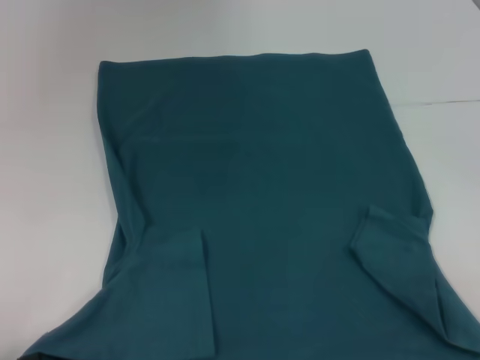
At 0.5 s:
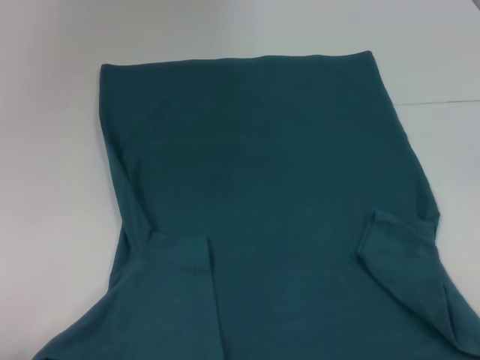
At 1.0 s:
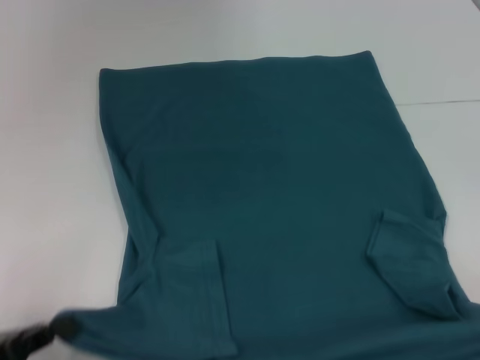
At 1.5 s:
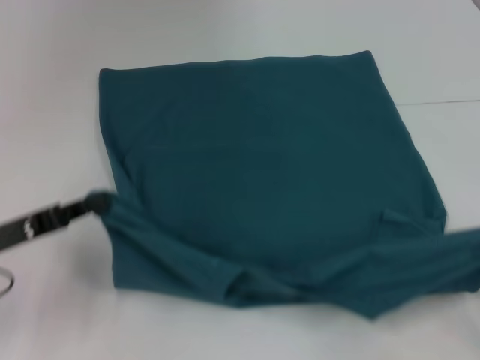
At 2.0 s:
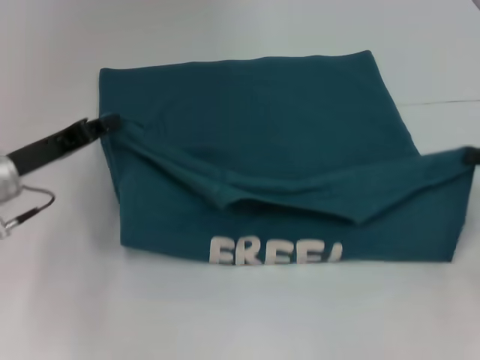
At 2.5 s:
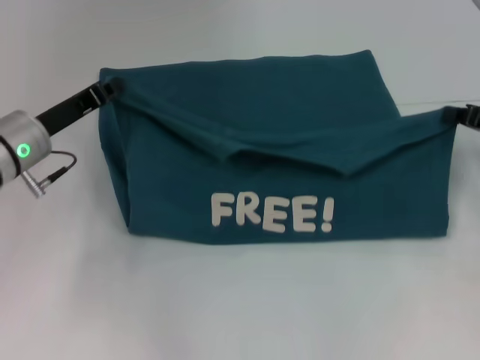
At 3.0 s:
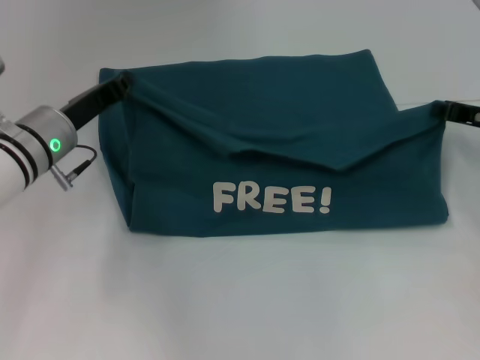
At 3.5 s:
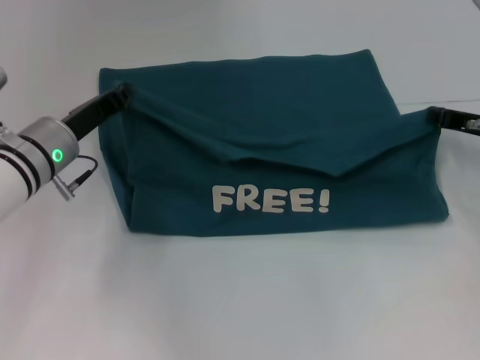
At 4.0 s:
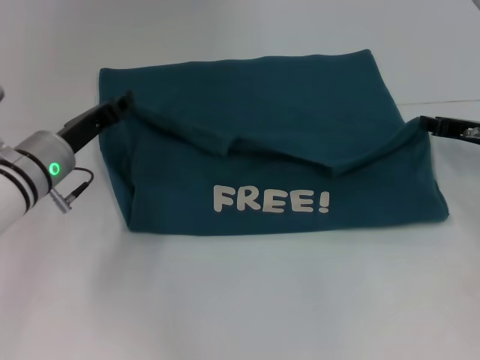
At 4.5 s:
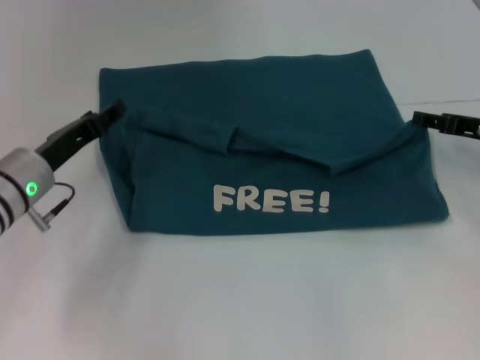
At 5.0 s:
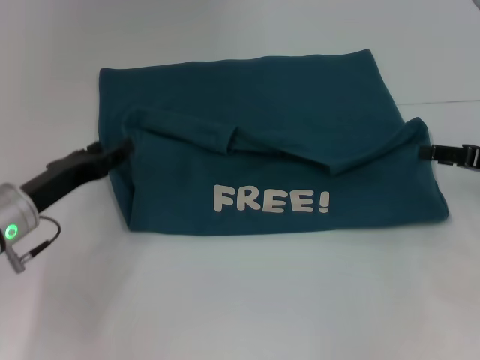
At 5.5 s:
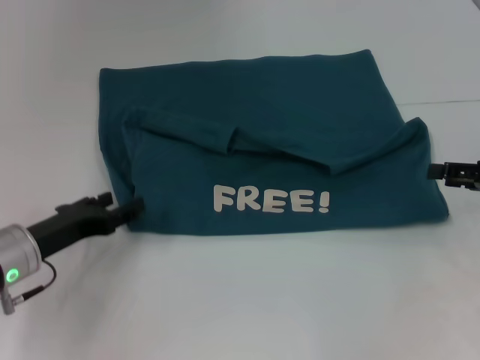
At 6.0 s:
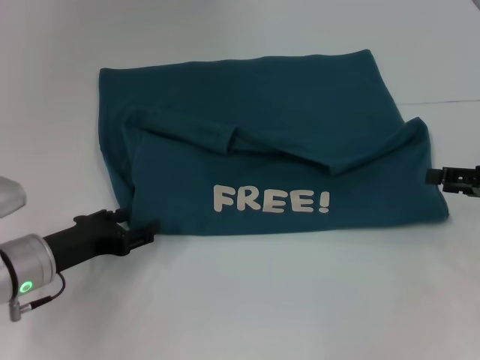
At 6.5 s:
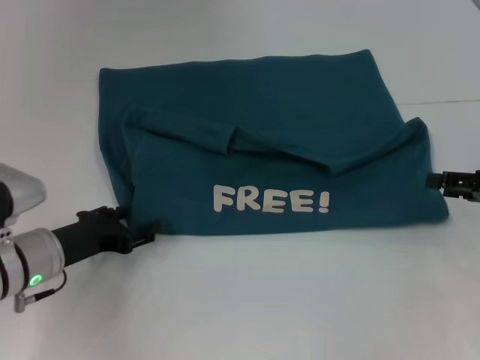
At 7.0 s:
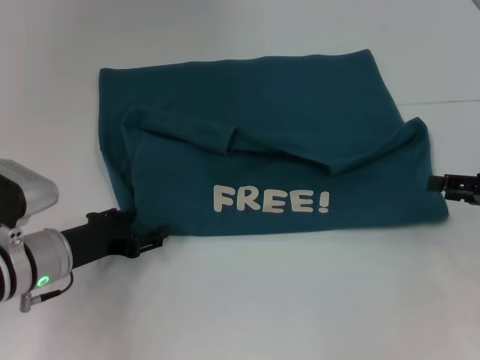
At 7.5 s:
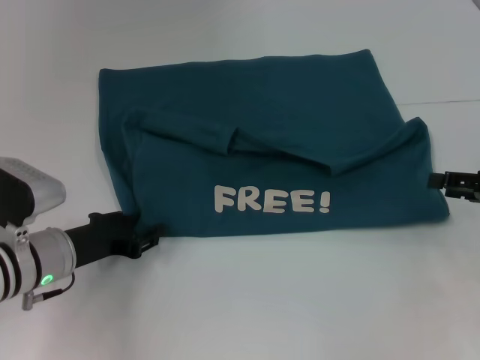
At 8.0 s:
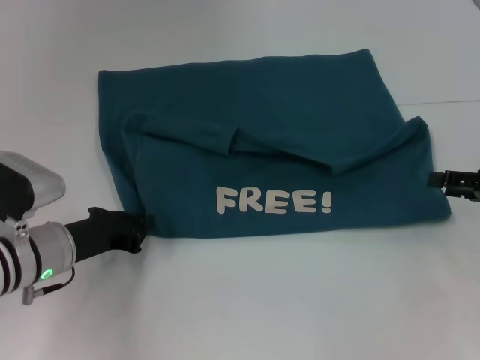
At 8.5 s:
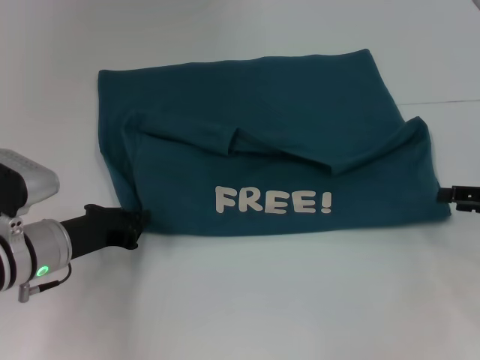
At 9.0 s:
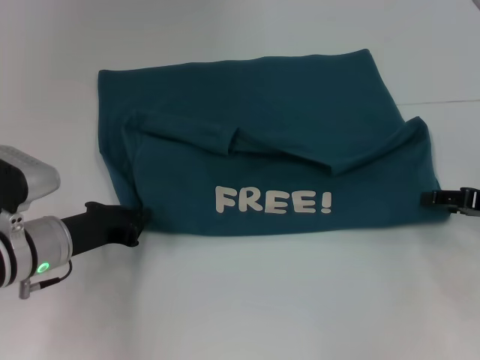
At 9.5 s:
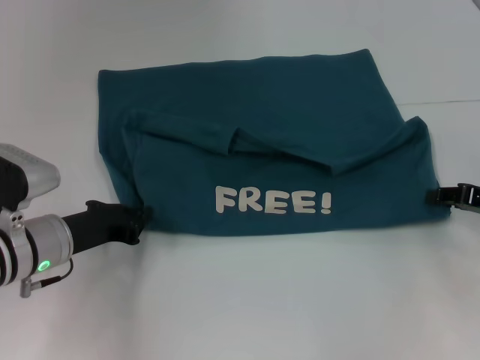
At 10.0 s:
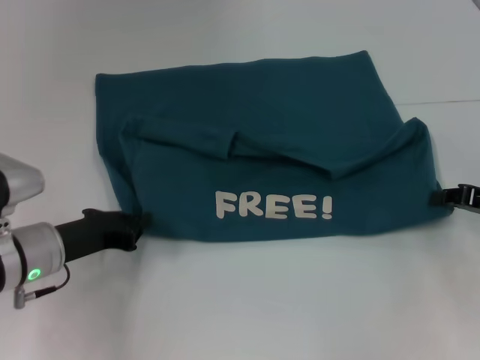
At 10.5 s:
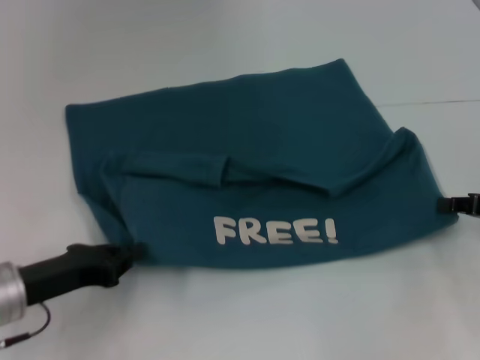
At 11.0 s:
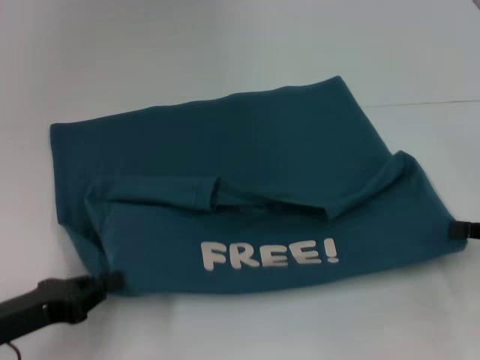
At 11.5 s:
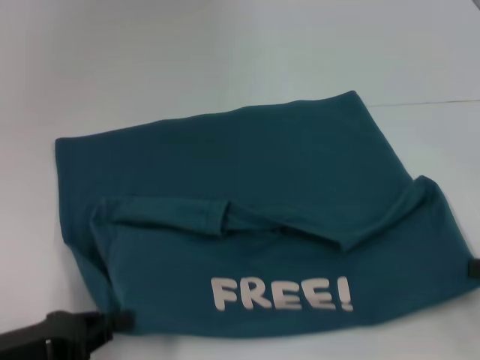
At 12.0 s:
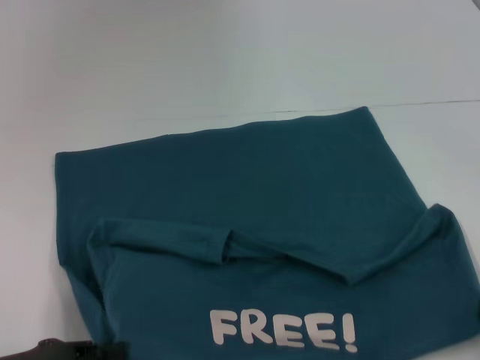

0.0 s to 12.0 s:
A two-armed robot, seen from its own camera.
Step, 0.0 to 4.5 s: Fold the clothes to the left.
Step, 0.0 to 4.5 s: Fold the clothes to the right.
Step, 5.0 to 11.5 s: Pull the clothes with your left hand.
Step, 5.0 to 11.5 s: Pull the clothes with your right hand.
0.0 to 2.0 s: The right gripper is displaced forward by approximately 20 cm. Meanwhile the left gripper is displaced forward and to the right by approximately 25 cm.
2.0 to 4.0 s: The right gripper goes some 10 cm forward and to the left; the left gripper is displaced to the right by some 5 cm.
4.0 to 6.0 s: The two grippers go approximately 10 cm backward. The right gripper opens its fingers. The left gripper opens.
6.0 to 8.0 s: The left gripper closes up.
8.0 to 10.0 s: The right gripper closes up.
10.0 to 12.0 s: The left gripper goes roughly 15 cm backward and to the left. Meanwhile the right gripper moves backward, approximately 15 cm.

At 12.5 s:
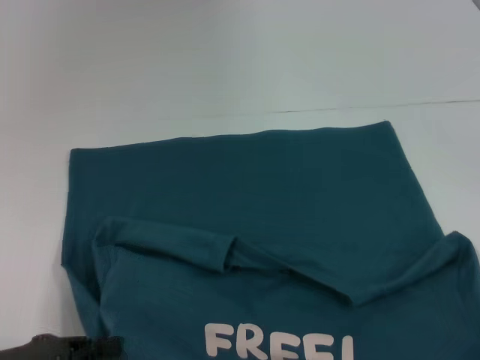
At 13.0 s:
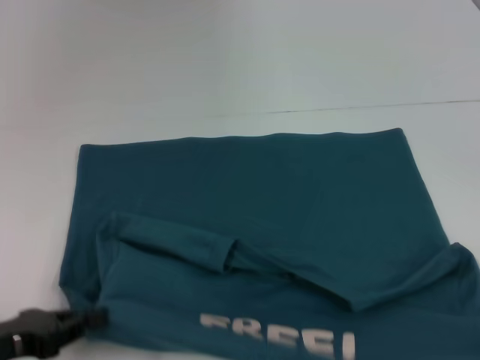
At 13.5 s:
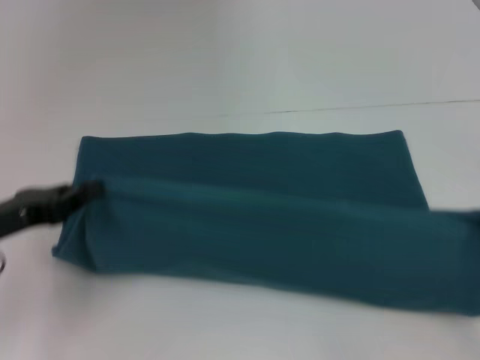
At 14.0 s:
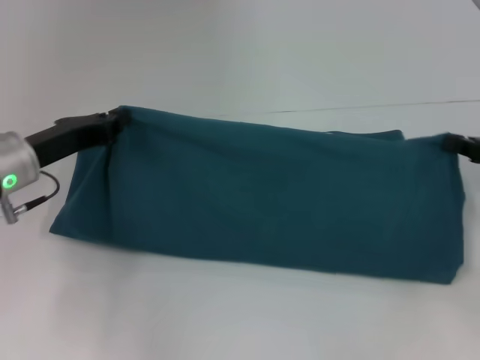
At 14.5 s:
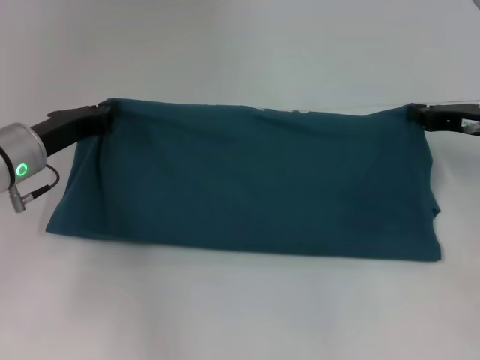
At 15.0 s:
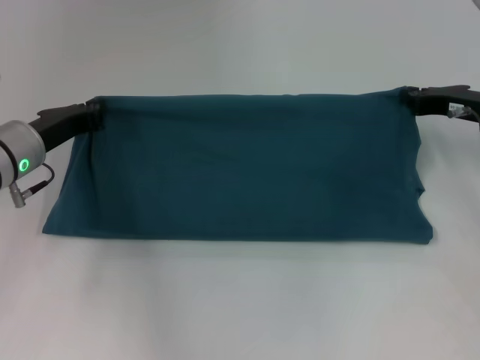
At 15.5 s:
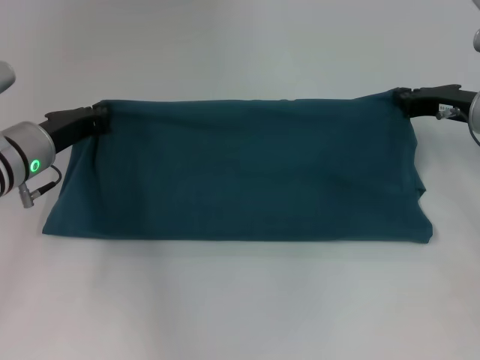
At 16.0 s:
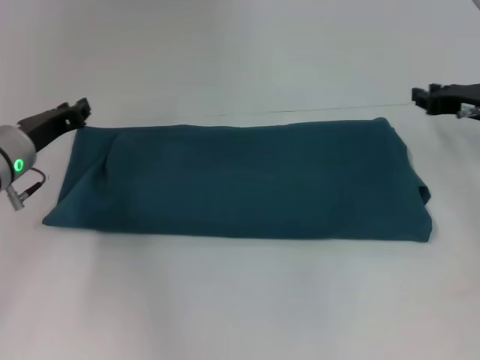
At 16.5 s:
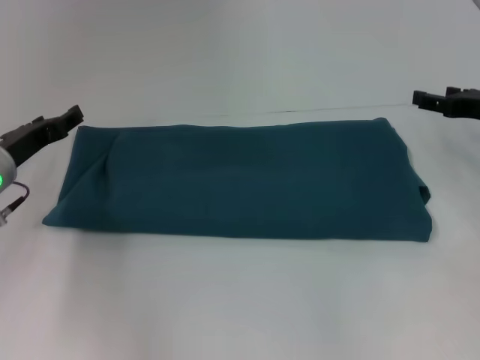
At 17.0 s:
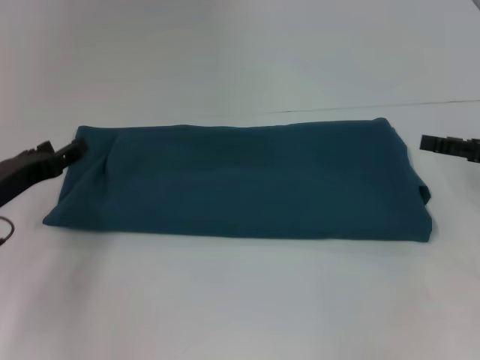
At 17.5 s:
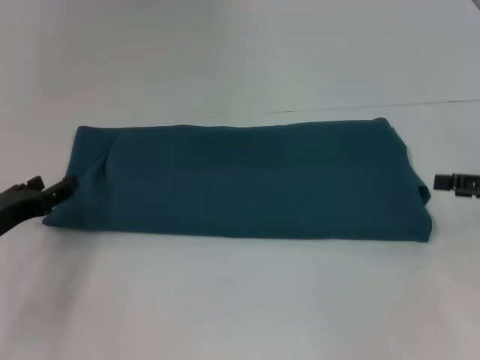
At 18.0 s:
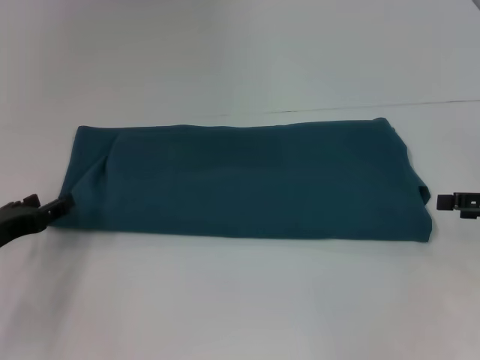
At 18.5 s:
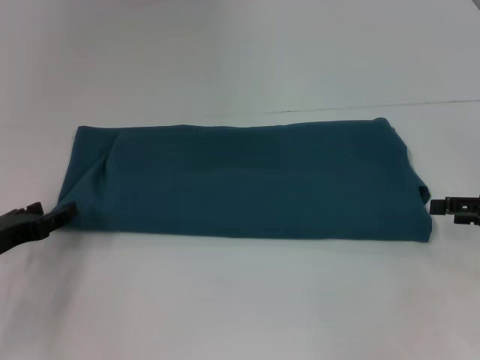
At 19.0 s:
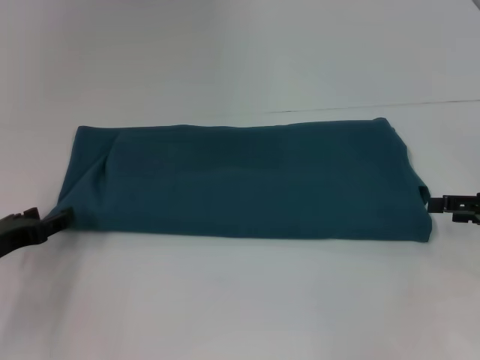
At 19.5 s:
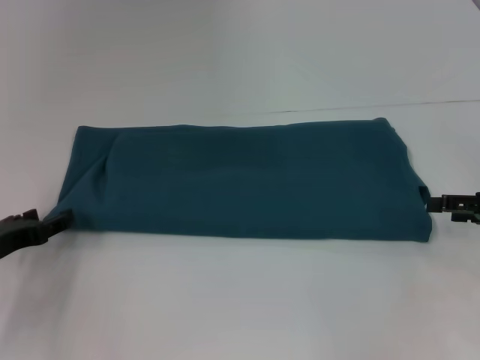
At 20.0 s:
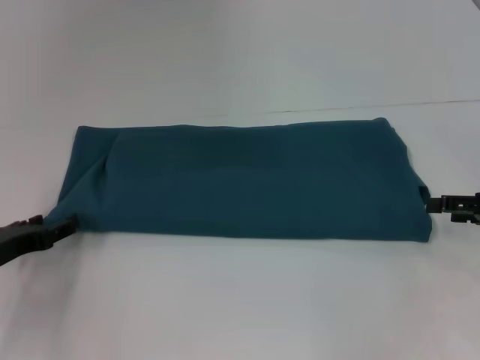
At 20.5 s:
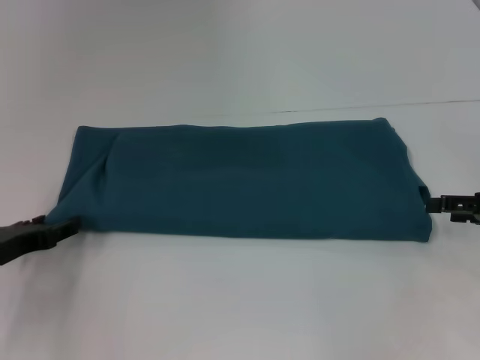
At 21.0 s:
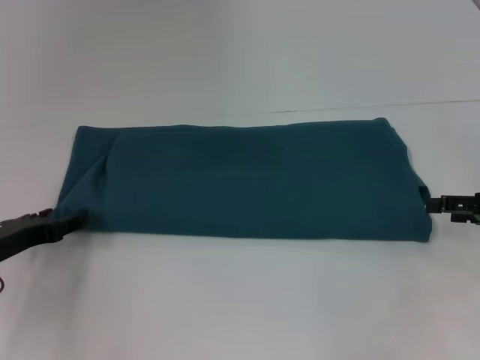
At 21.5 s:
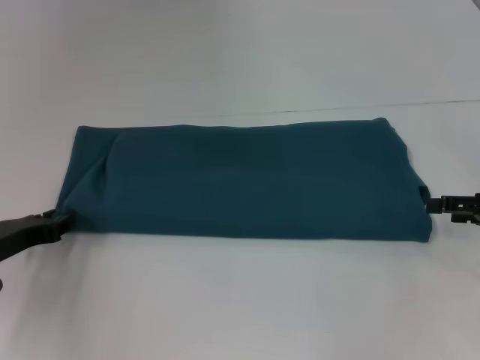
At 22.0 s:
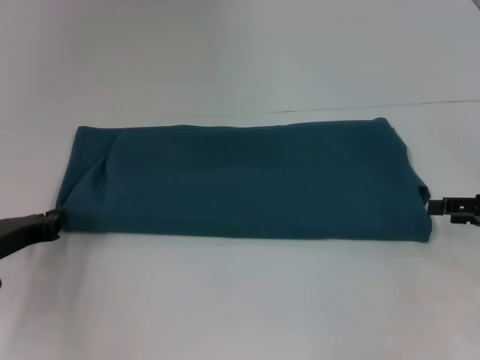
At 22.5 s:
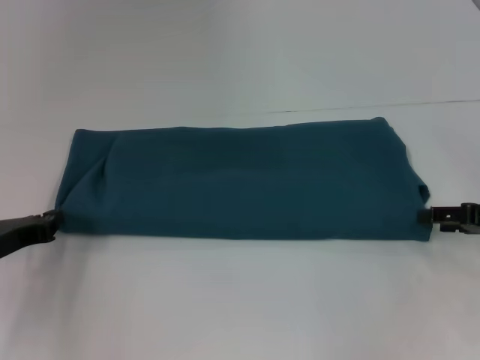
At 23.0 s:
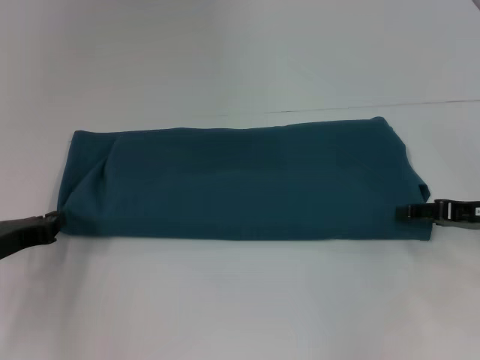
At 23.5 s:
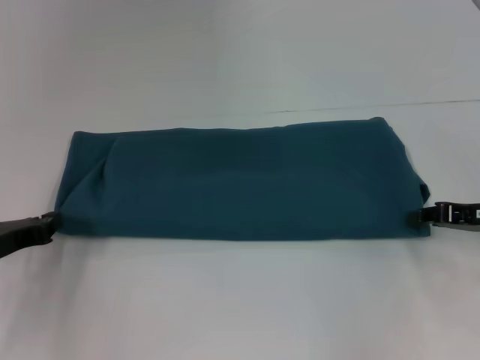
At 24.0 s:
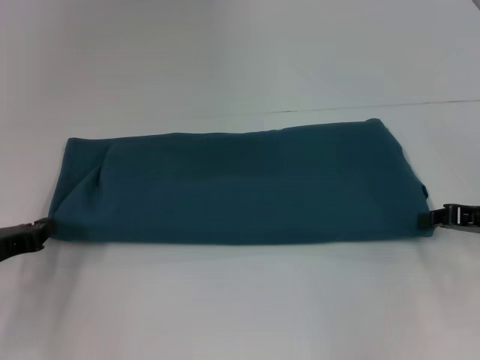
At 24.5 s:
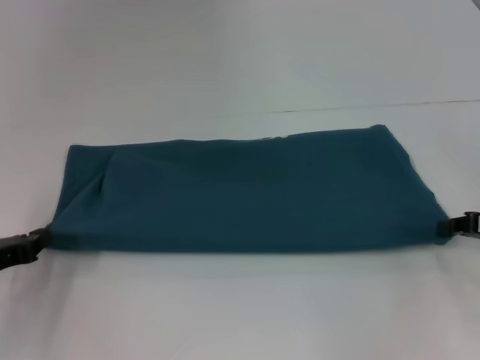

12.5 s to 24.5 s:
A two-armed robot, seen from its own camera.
Step, 12.5 to 15.5 s: Fold the clothes to the left.
Step, 12.5 to 15.5 s: Fold the clothes to the right.
12.5 to 14.5 s: Both grippers travel together forward, approximately 20 cm.
14.5 to 16.5 s: The left gripper opens; the right gripper opens up.
16.5 to 18.5 s: Both grippers travel together backward, some 10 cm.
18.5 to 20.5 s: There are only small adjustments of the grippers.
20.5 to 22.5 s: The left gripper closes.
22.5 to 24.5 s: The right gripper closes.

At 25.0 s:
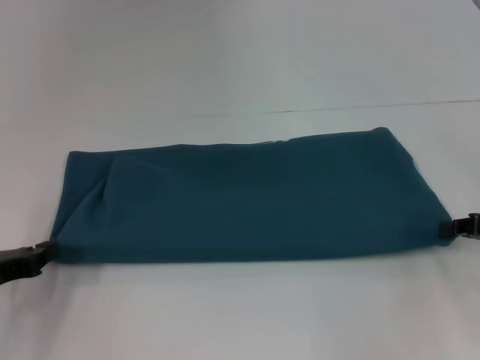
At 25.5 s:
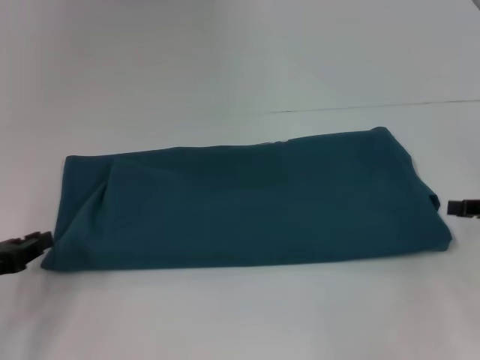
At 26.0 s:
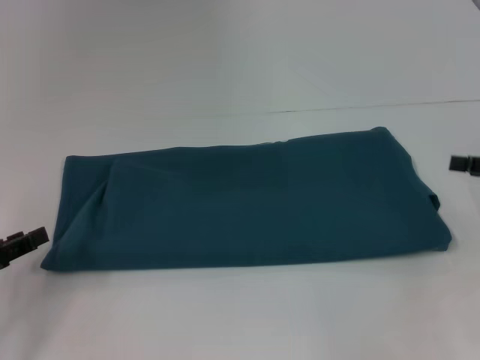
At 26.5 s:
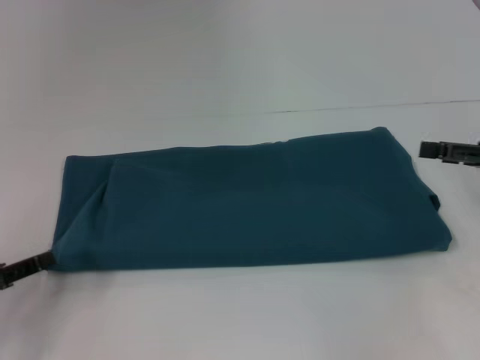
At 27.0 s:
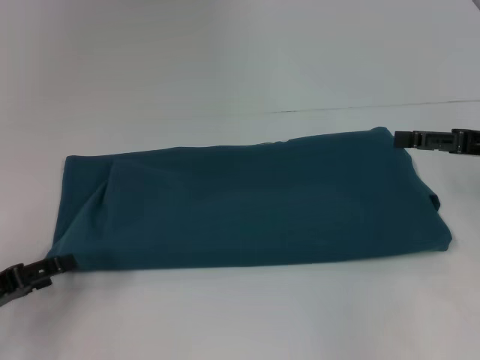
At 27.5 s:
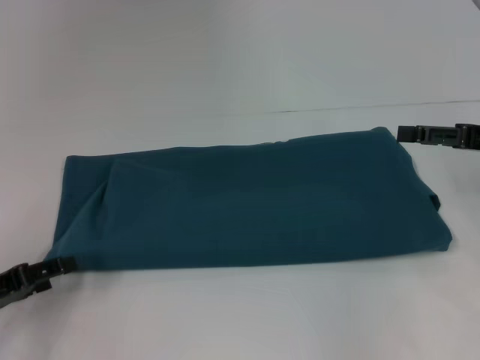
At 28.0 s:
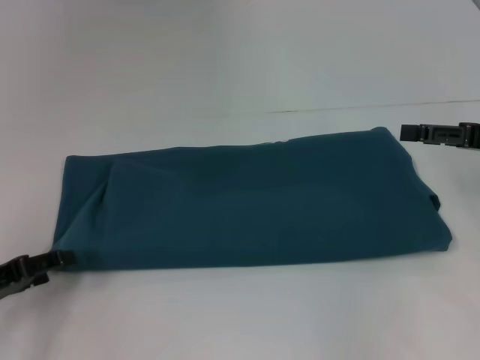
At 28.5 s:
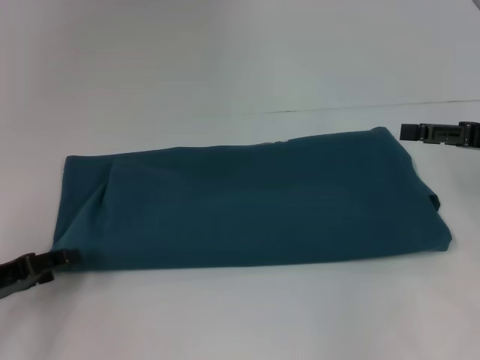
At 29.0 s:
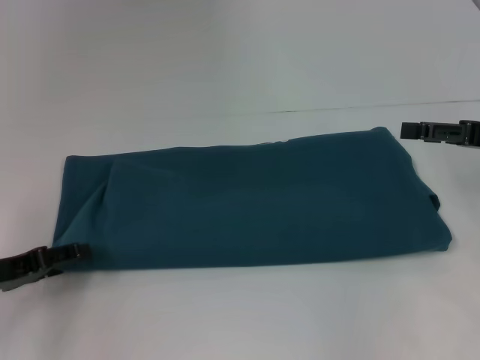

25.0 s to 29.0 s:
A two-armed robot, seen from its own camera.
25.0 to 27.0 s: The left gripper opens. The right gripper is displaced upward by approximately 5 cm, and opens its fingers.
27.0 to 29.0 s: The grippers stay close to where they were, moving slightly.
